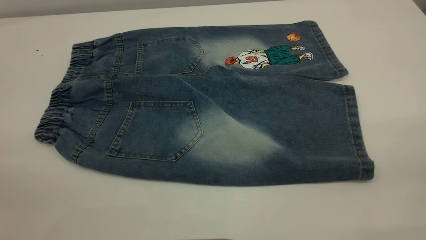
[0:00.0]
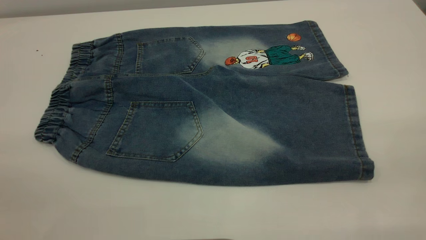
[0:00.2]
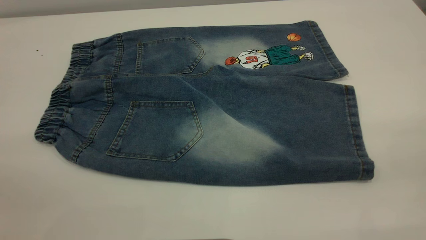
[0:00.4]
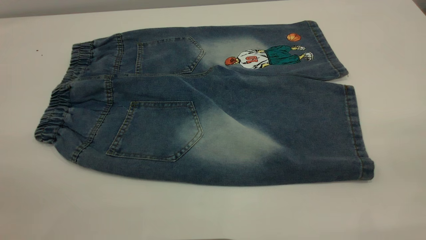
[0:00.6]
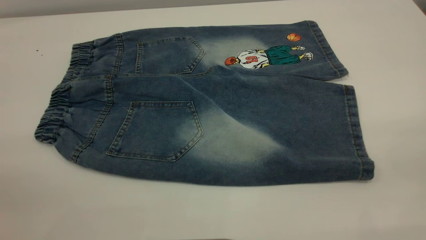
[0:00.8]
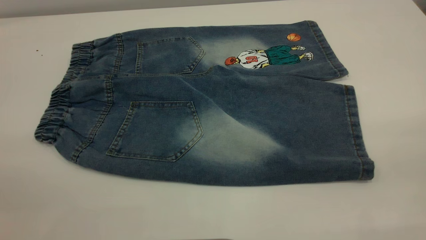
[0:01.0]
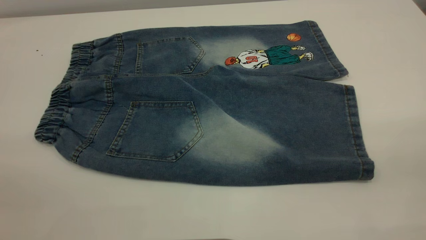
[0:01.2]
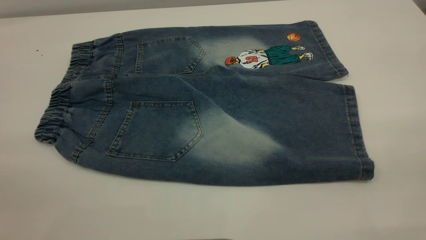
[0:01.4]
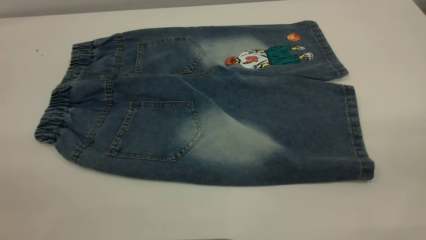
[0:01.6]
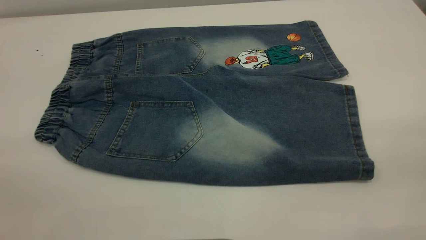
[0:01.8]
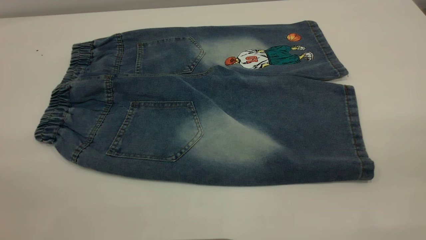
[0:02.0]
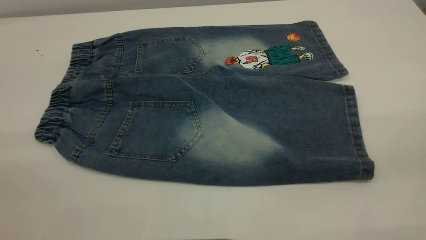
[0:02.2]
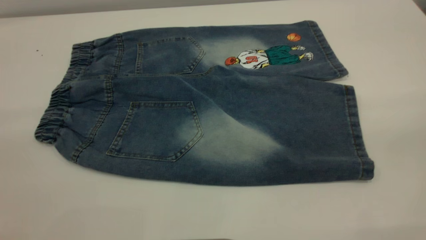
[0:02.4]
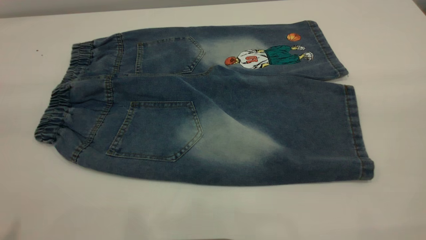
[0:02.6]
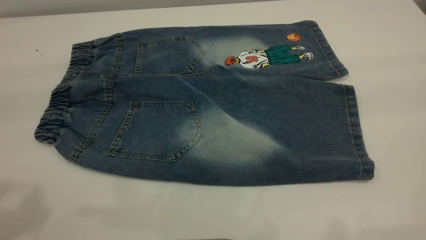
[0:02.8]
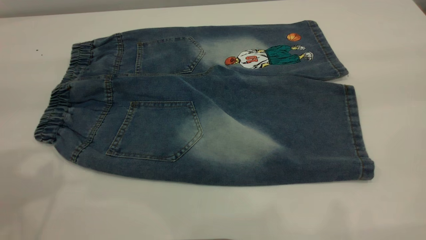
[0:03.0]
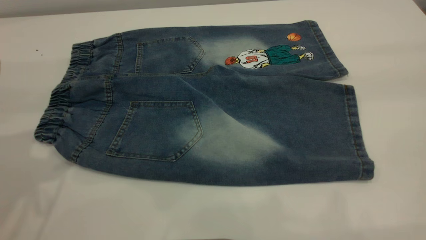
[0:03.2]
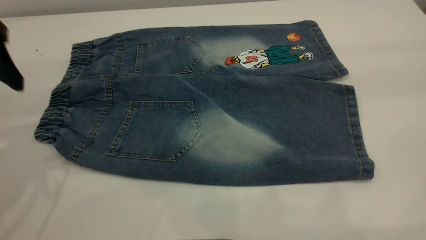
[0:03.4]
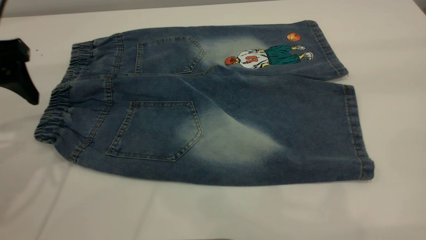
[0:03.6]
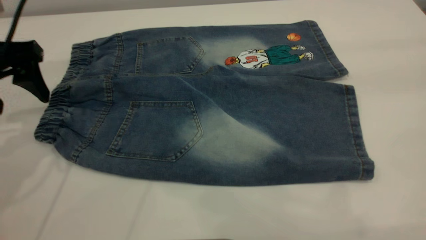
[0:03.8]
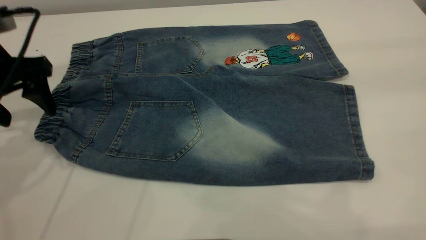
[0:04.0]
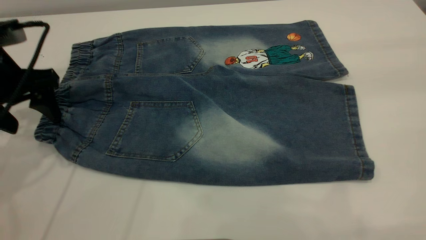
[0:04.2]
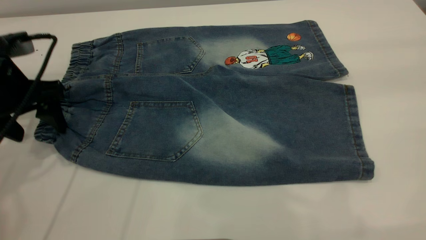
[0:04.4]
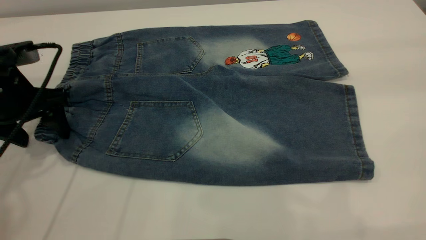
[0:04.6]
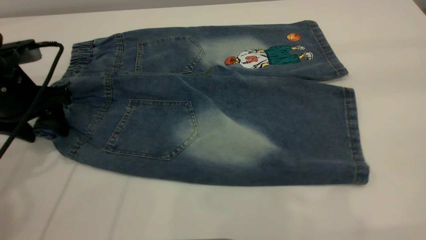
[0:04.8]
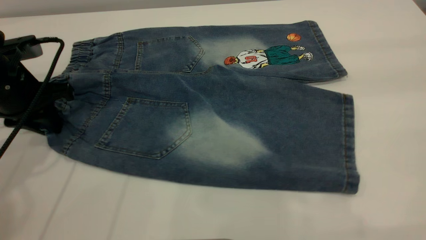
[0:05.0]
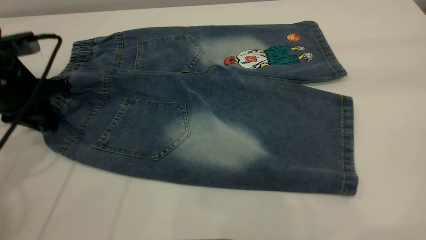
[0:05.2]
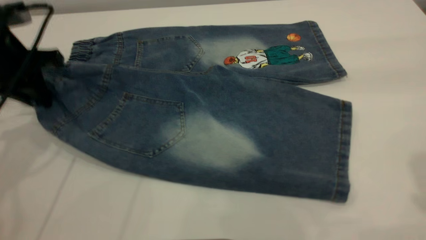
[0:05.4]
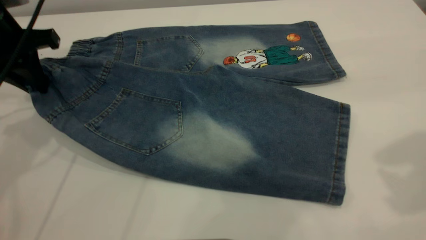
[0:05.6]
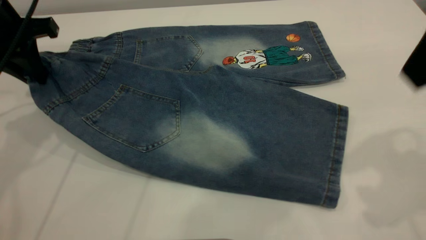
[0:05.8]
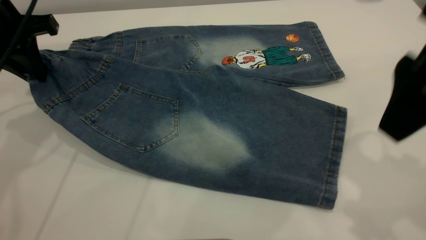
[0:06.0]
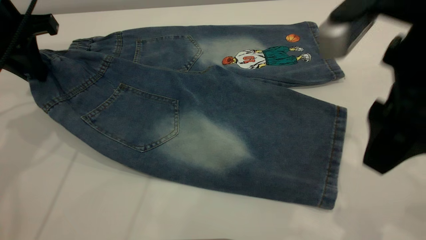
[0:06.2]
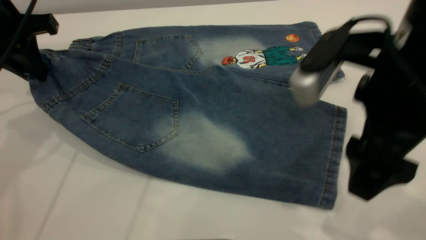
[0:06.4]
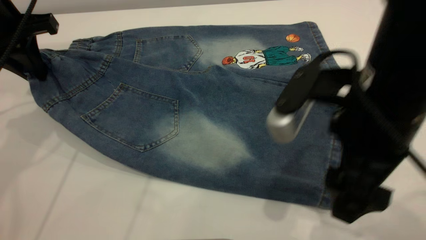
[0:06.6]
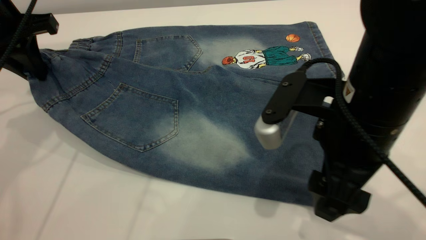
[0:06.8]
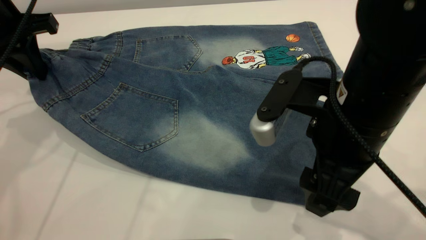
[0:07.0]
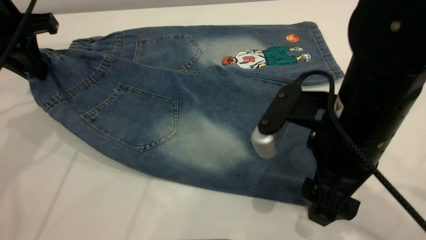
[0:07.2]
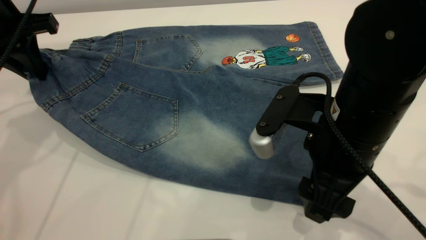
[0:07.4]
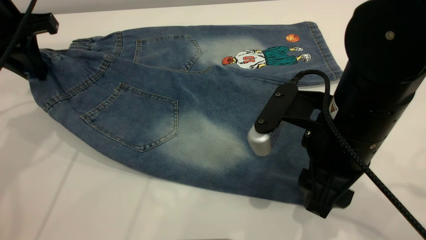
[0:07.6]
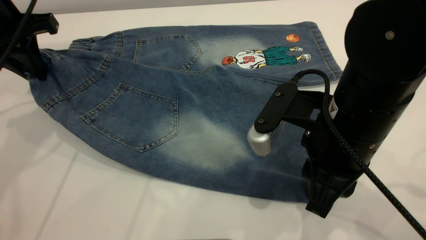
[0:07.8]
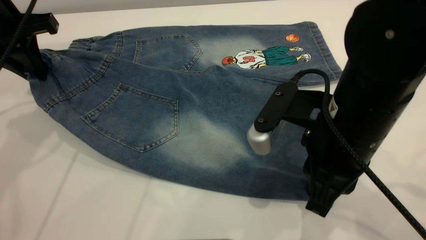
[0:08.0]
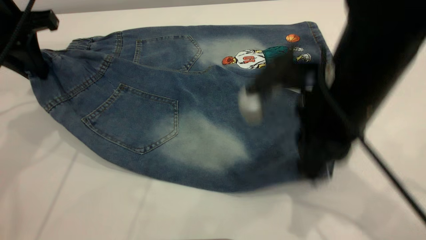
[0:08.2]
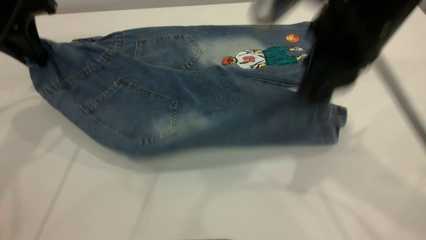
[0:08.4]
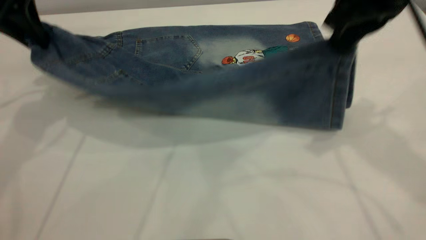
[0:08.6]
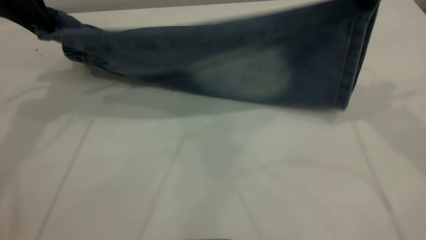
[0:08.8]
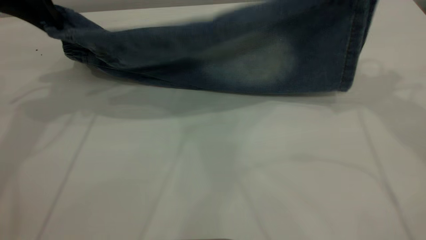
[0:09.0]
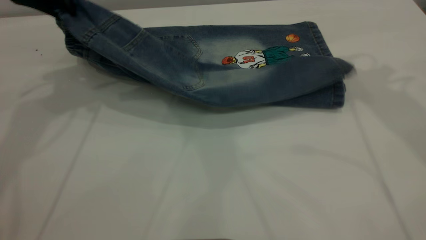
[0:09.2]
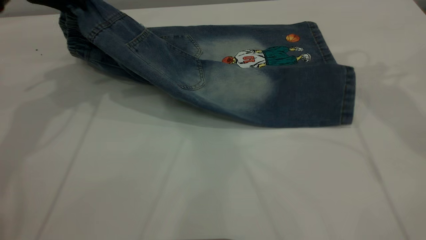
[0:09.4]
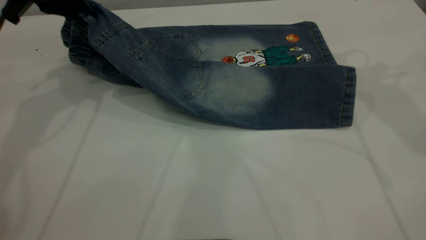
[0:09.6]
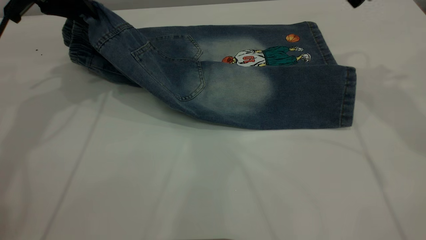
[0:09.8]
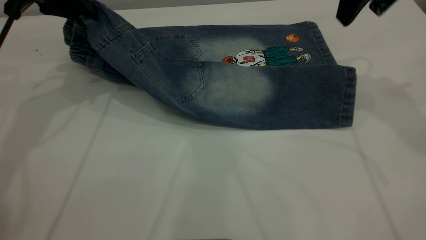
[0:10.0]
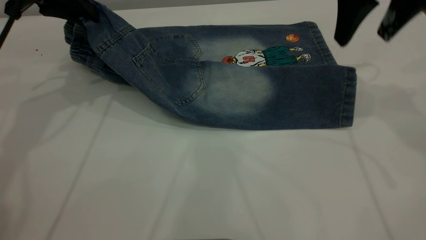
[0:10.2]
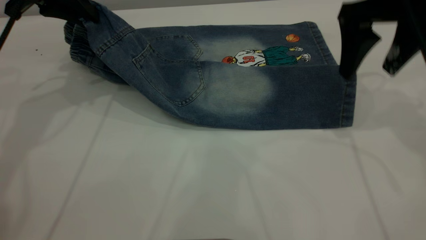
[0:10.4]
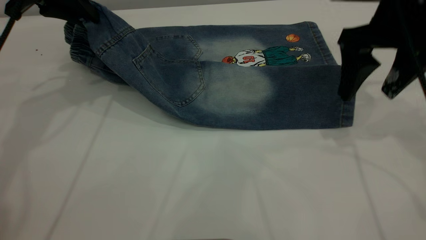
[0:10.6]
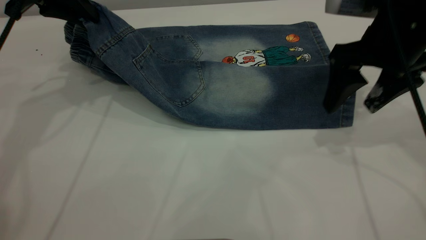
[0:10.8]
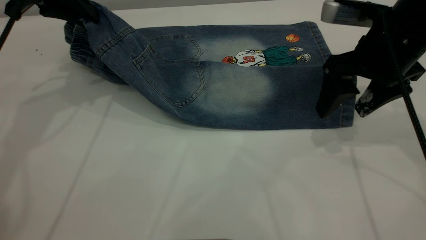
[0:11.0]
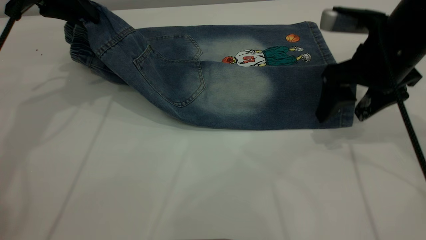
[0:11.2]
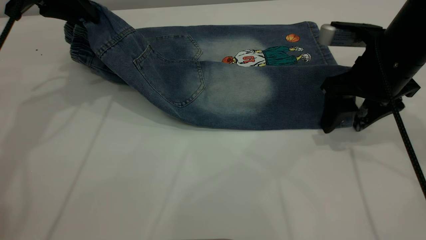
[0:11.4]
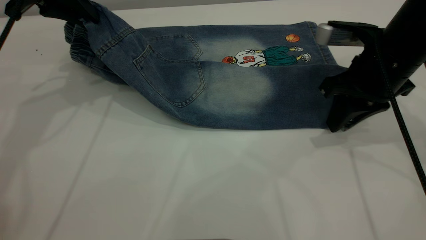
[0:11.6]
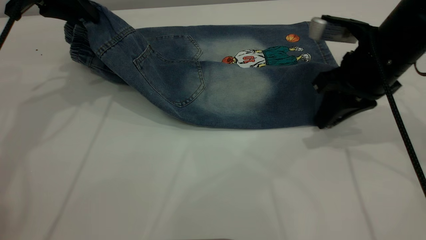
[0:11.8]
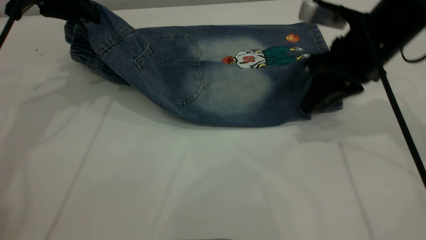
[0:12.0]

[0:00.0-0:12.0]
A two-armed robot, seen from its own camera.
0:00.0 to 0:01.6: Neither gripper changes place.
0:03.0 to 0:04.4: The left gripper goes some 20 cm downward and forward.
0:04.4 to 0:06.0: The left gripper shifts roughly 5 cm upward, and closes its fingers. Meanwhile the right gripper heads downward, to the left and forward, covering about 20 cm.
0:06.0 to 0:07.6: The right gripper moves downward and to the left, about 15 cm, and closes its fingers.
0:07.6 to 0:09.0: The right gripper moves upward, forward and to the right, about 25 cm, and closes, while the left gripper shifts roughly 5 cm upward.
0:09.0 to 0:10.4: The right gripper travels downward by roughly 10 cm, and opens.
0:10.4 to 0:12.0: The right gripper shifts roughly 5 cm downward, and closes.

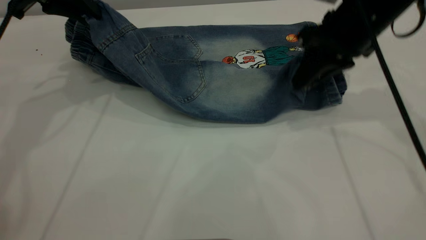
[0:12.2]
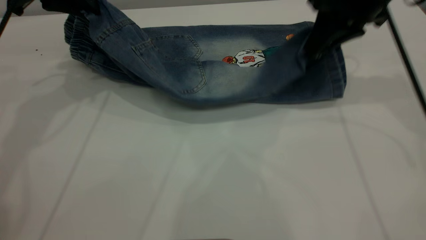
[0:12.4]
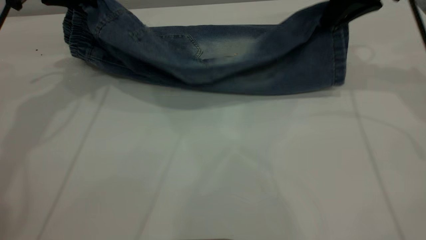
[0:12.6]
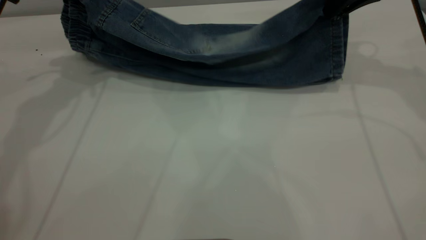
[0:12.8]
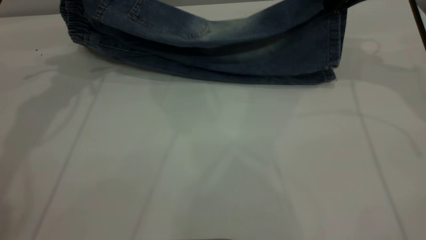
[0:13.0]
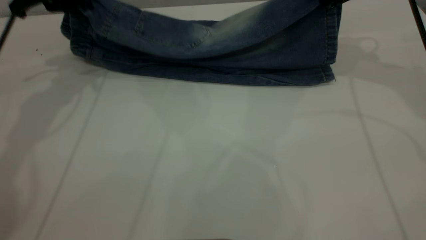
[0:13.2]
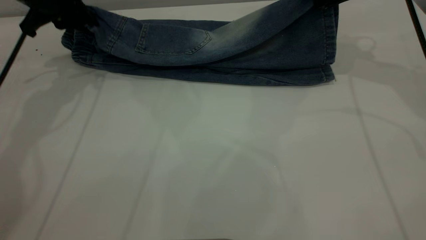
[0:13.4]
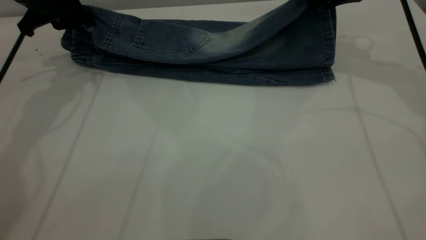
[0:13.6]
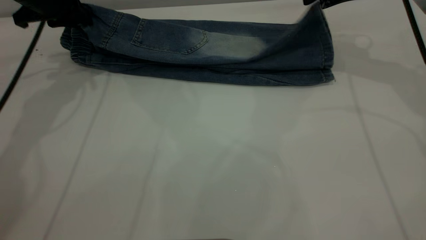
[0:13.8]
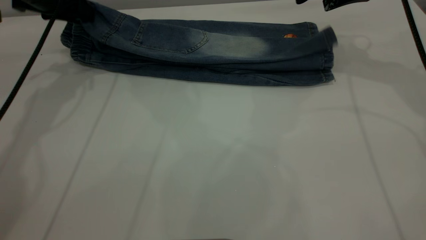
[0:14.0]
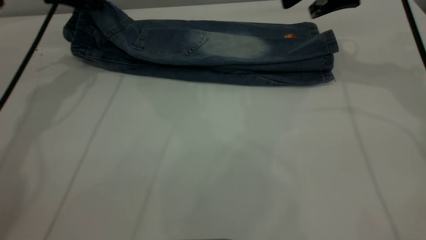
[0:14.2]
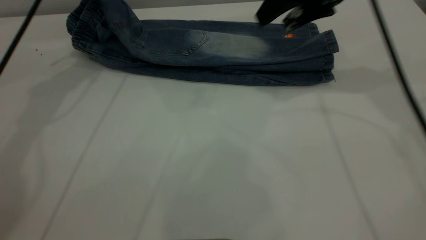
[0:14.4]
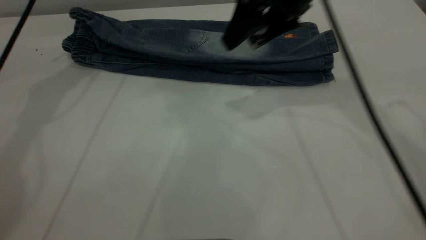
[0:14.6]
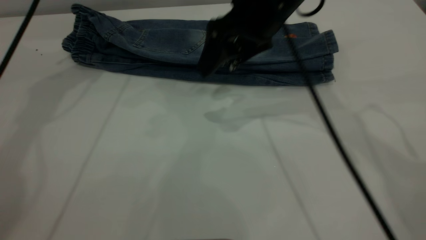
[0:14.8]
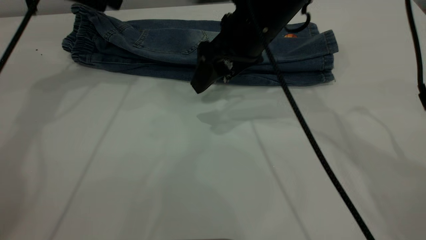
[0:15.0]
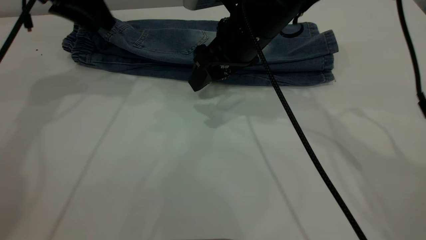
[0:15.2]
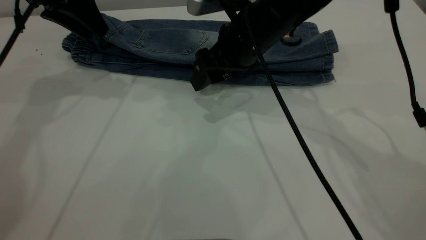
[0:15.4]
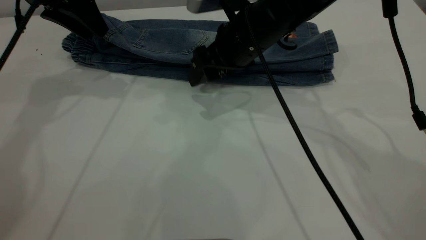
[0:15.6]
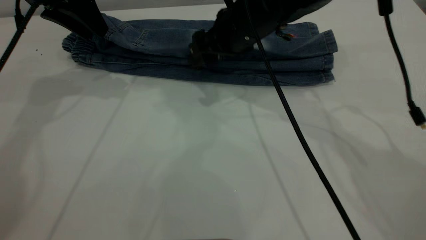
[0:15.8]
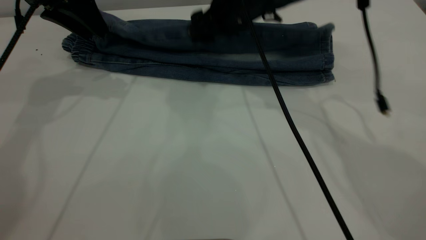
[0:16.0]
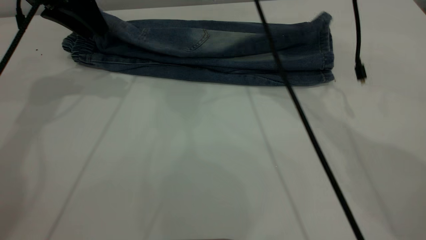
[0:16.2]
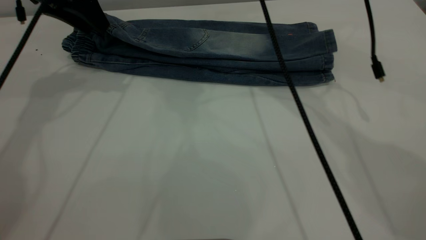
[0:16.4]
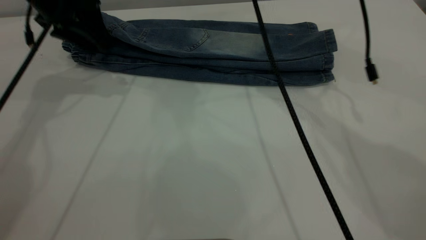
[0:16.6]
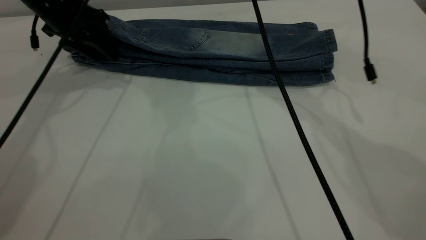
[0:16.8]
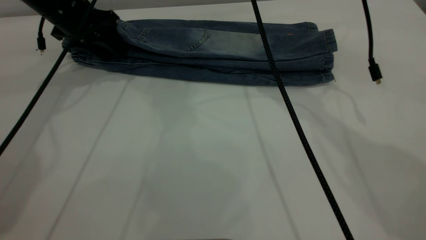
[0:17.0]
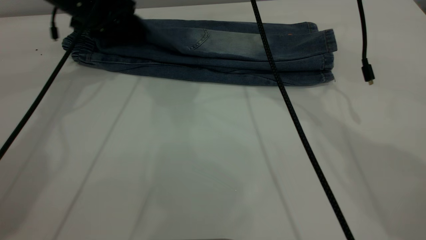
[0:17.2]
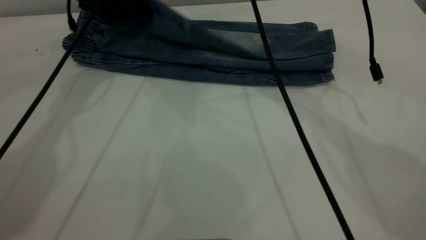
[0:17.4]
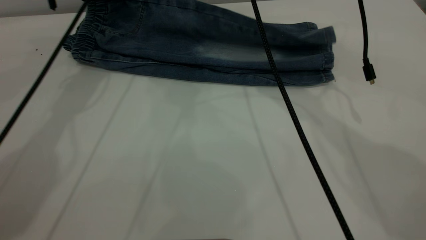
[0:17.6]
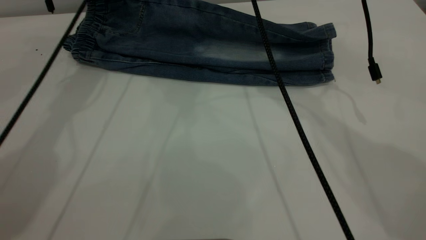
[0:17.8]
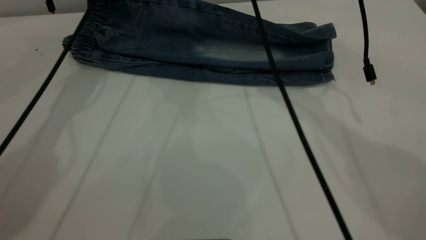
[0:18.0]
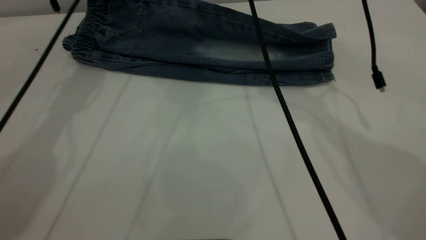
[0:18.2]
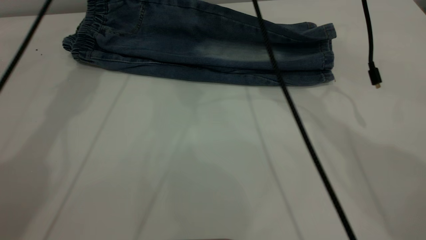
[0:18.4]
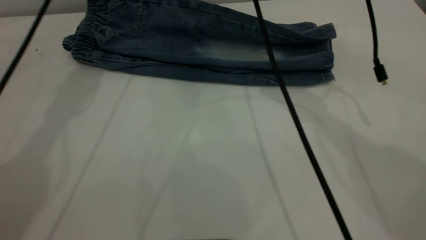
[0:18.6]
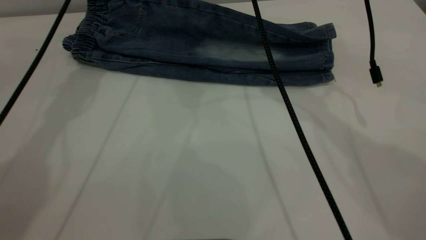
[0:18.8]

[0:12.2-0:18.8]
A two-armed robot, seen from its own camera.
Step, 0:12.2 to 0:14.8: Fold the bottom of the pants upward.
0:12.2 to 0:13.8: The right gripper moves forward and to the right, about 10 cm, and opens, while the left gripper goes about 5 cm downward.
0:13.8 to 0:15.4: The right gripper heads to the left and downward, covering approximately 20 cm, while the left gripper opens.
0:15.4 to 0:17.2: The right gripper shifts roughly 15 cm forward and upward. Meanwhile the left gripper heads downward, covering some 5 cm.
0:17.2 to 0:18.8: The left gripper is displaced upward by roughly 5 cm.
